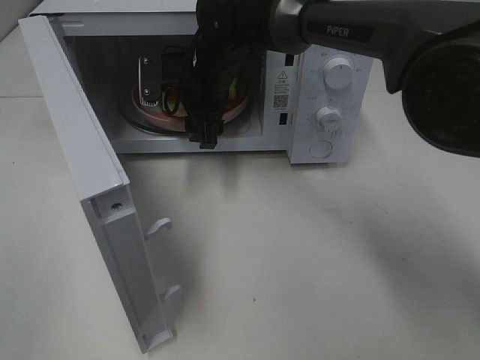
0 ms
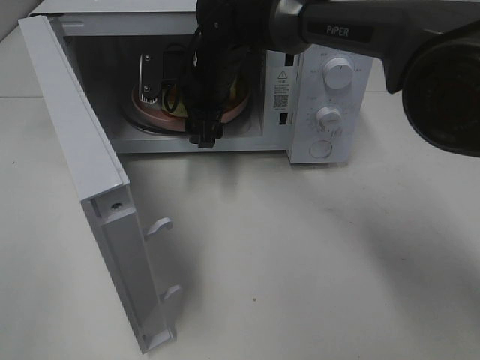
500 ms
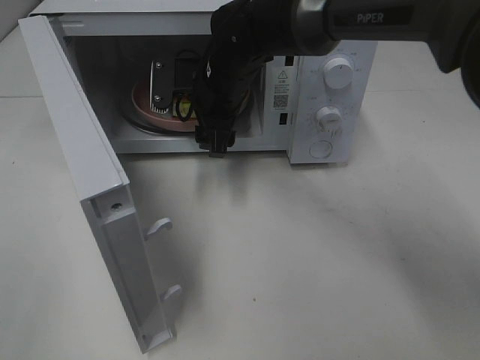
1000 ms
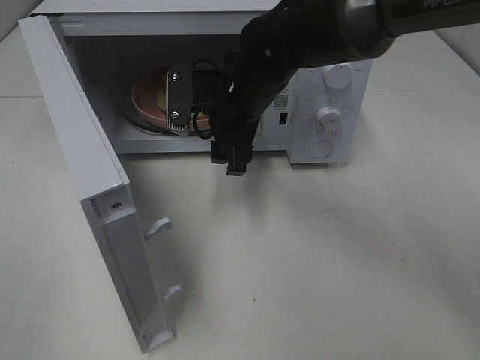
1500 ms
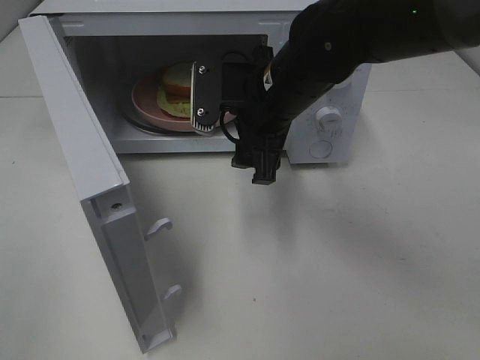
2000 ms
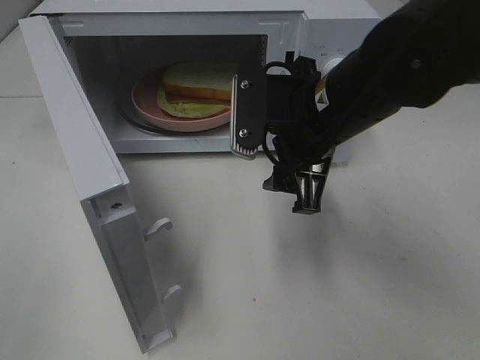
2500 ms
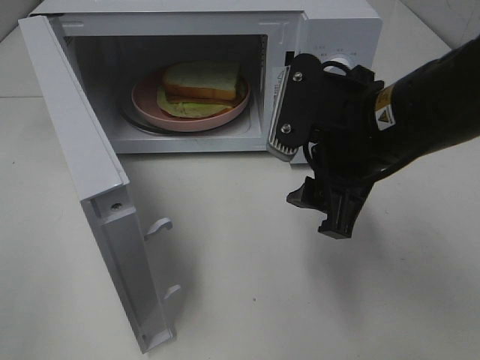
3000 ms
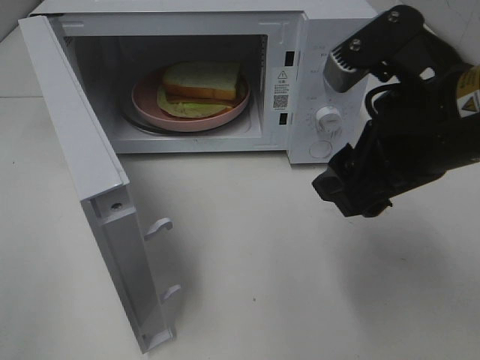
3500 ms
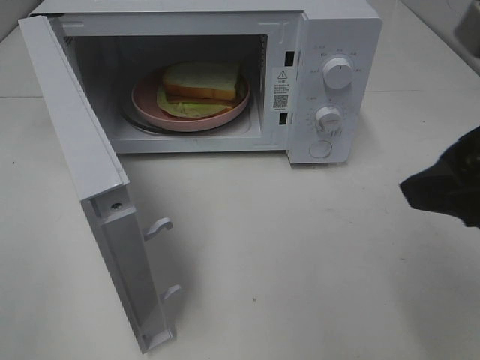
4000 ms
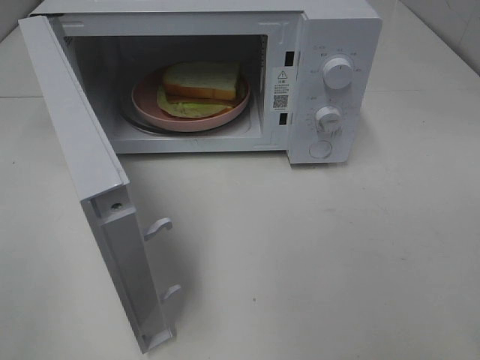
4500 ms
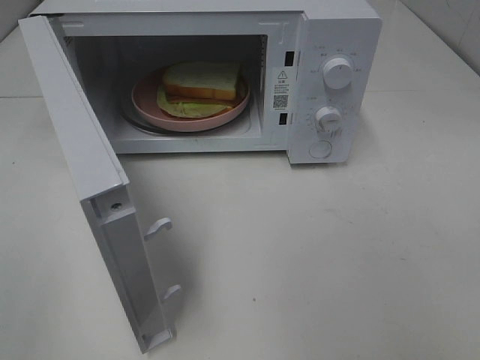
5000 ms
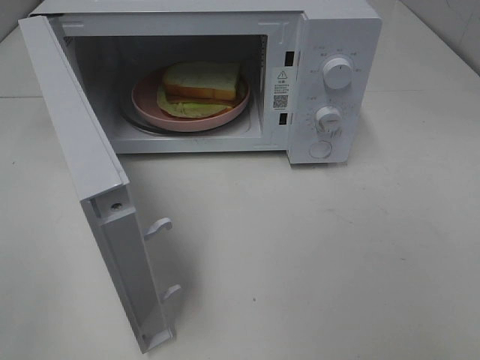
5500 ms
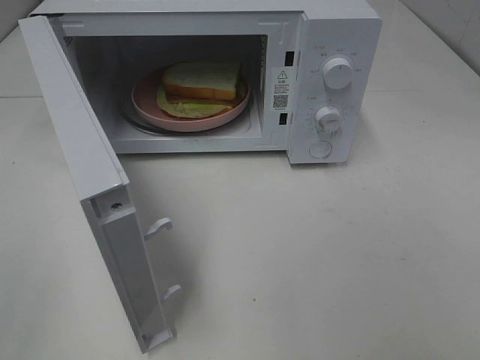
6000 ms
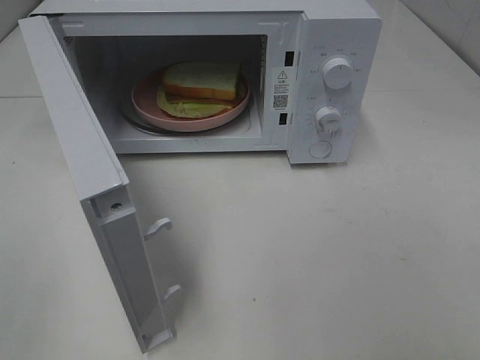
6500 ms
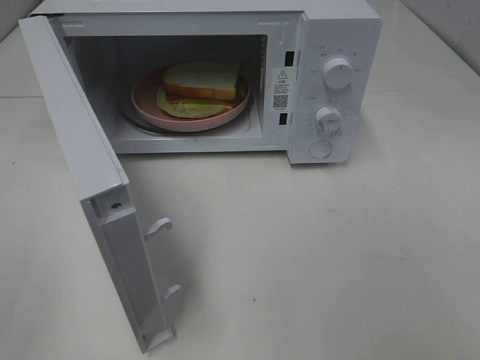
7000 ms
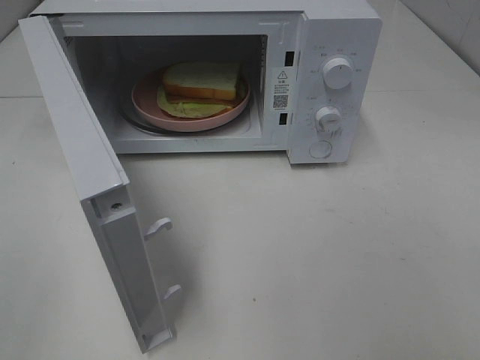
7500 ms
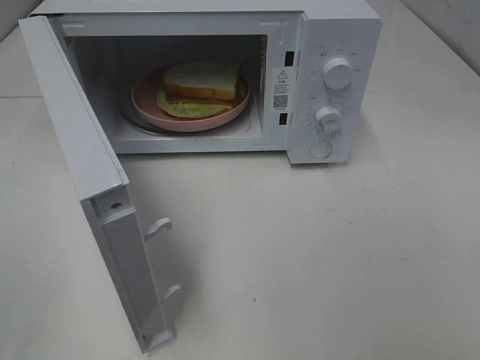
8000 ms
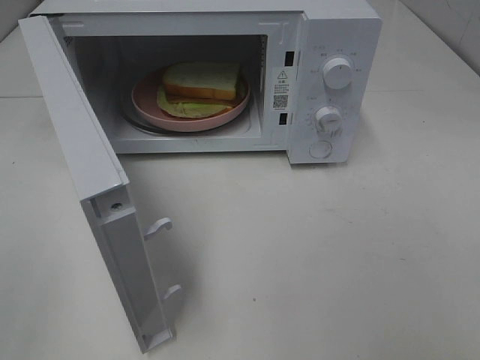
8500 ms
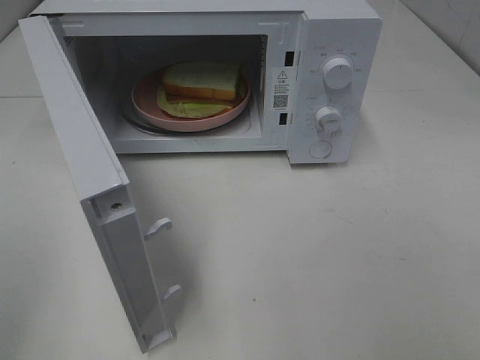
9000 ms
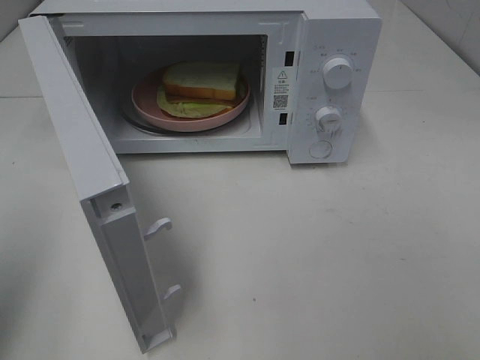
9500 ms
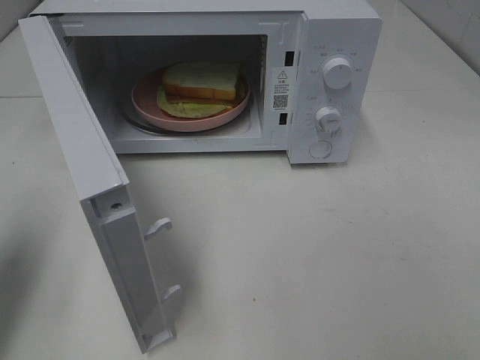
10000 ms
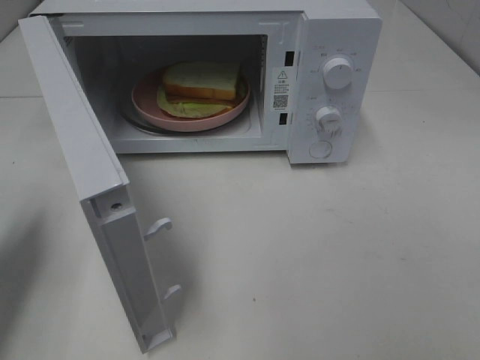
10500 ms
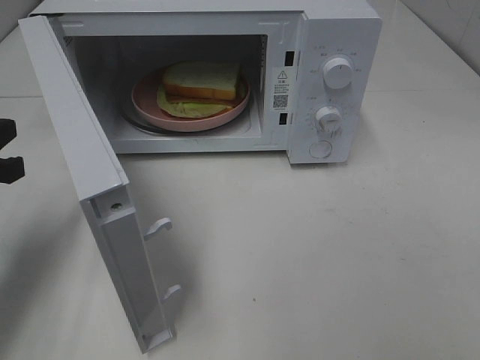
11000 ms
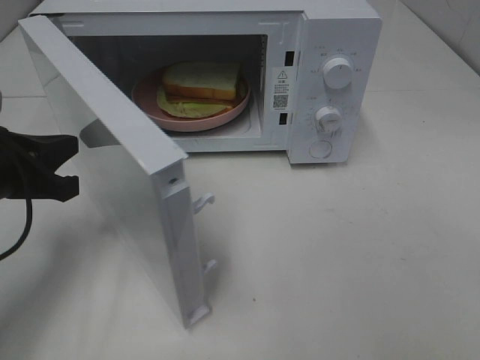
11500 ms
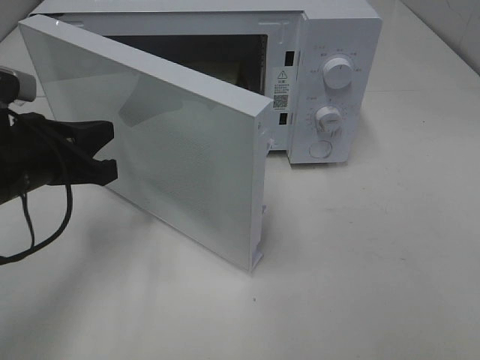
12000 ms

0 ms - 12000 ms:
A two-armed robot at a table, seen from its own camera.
Task of the whole recording: Heat Sandwich.
0 ms - 2000 ms: The right gripper heads backward and to the right, covering roughly 15 cm.
2000 ms - 4000 ms: The right gripper is displaced backward, to the right and upward by roughly 25 cm.
4000 ms - 6000 ms: The right gripper moves backward and to the right, some 15 cm.
8000 ms - 10000 ms: The left gripper shifts some 20 cm forward, and closes up.
10000 ms - 12000 ms: The left gripper goes approximately 15 cm to the right, downward and forward.

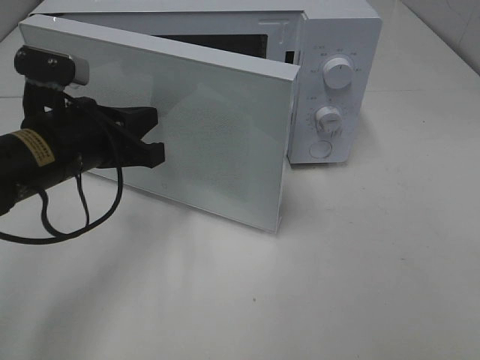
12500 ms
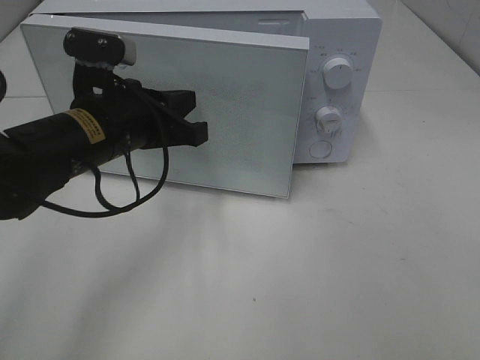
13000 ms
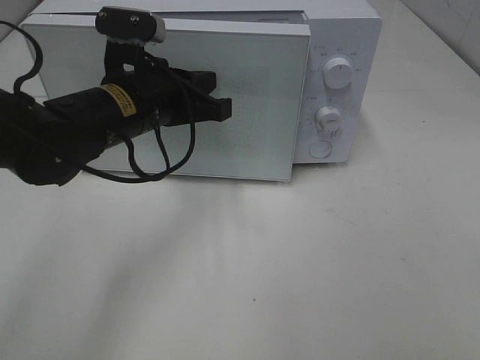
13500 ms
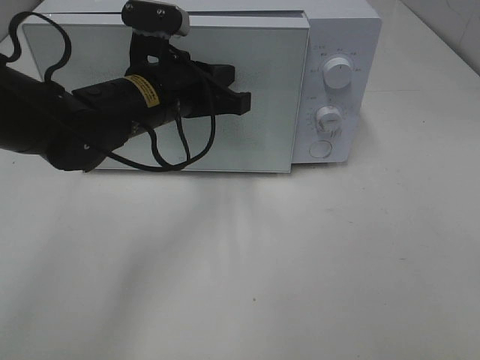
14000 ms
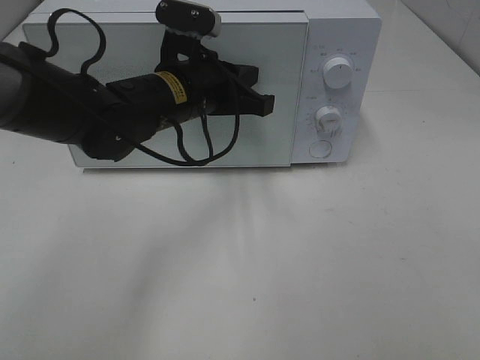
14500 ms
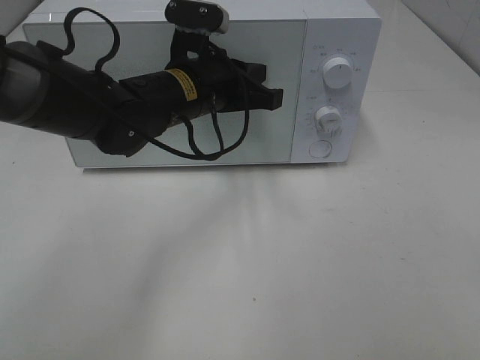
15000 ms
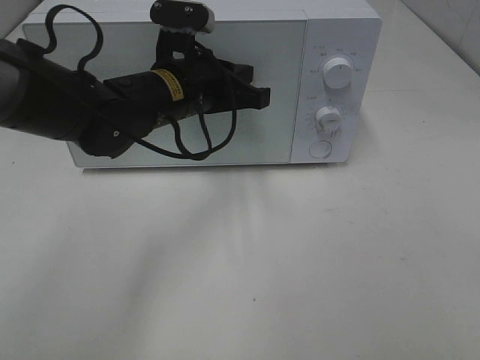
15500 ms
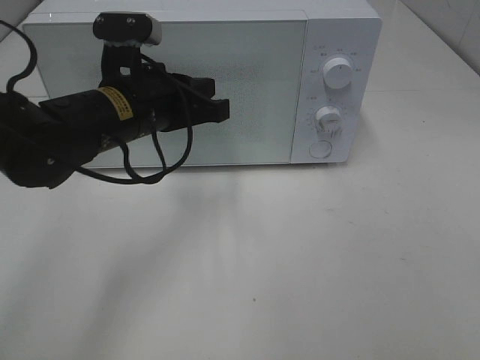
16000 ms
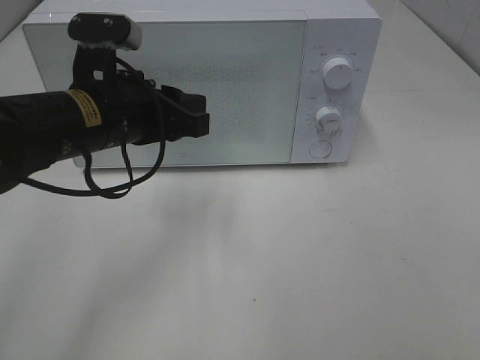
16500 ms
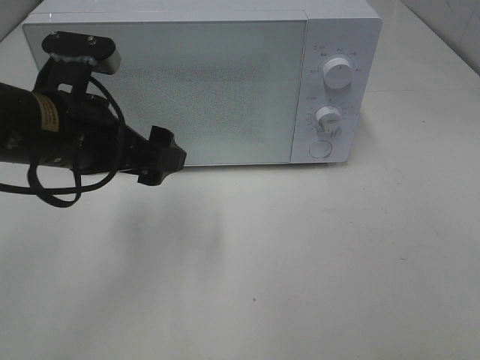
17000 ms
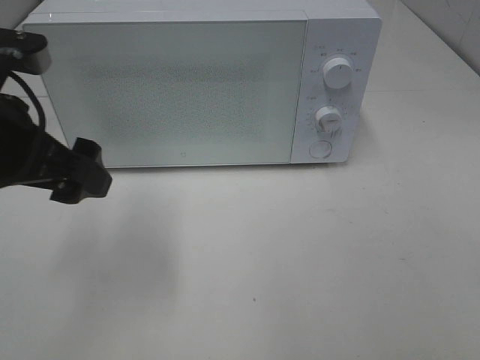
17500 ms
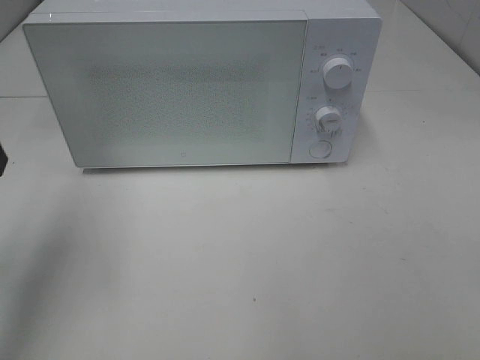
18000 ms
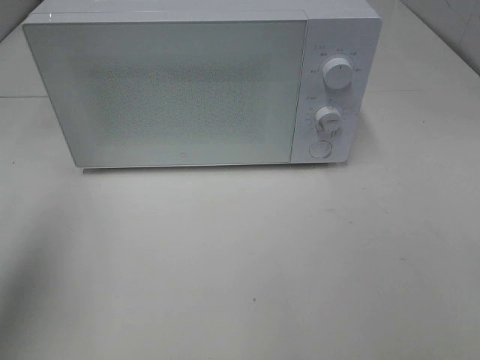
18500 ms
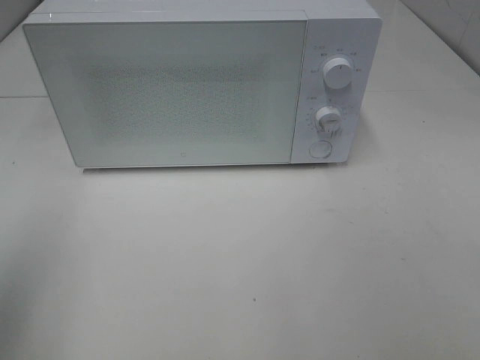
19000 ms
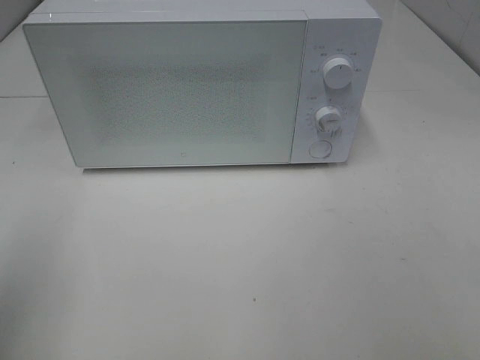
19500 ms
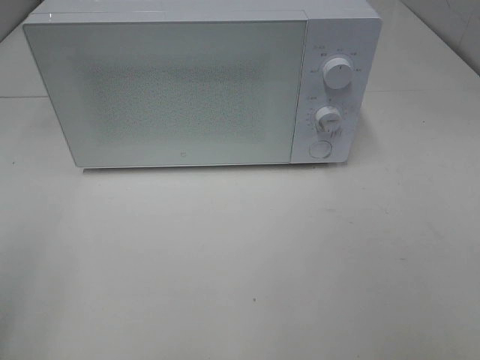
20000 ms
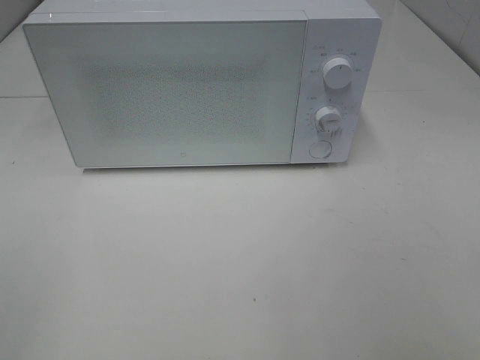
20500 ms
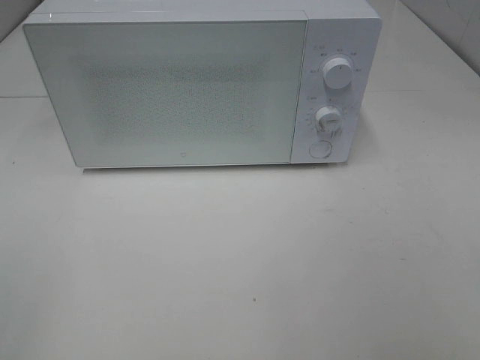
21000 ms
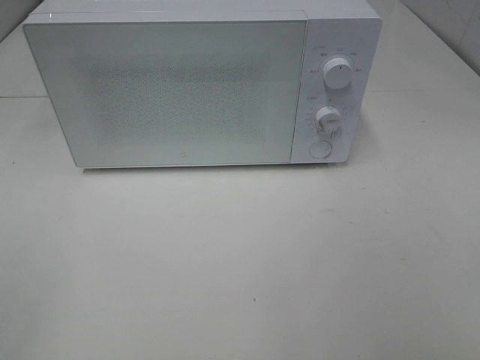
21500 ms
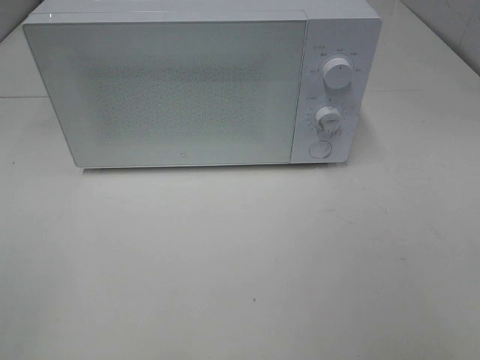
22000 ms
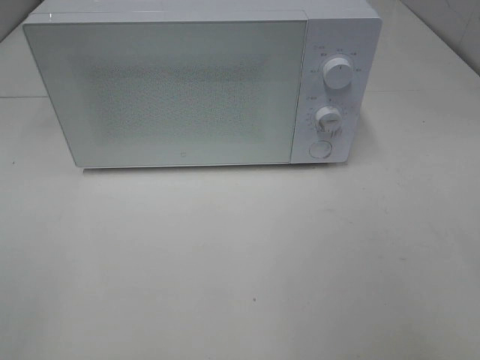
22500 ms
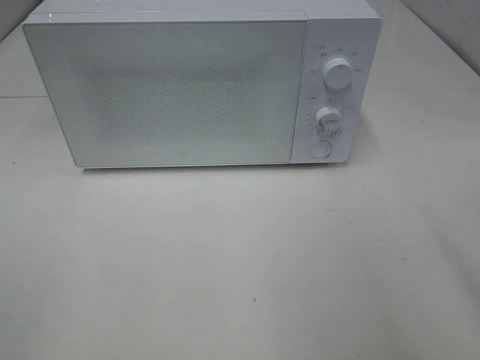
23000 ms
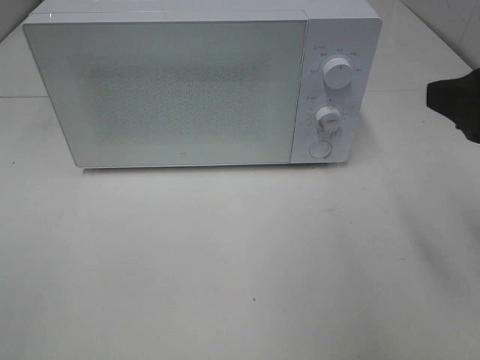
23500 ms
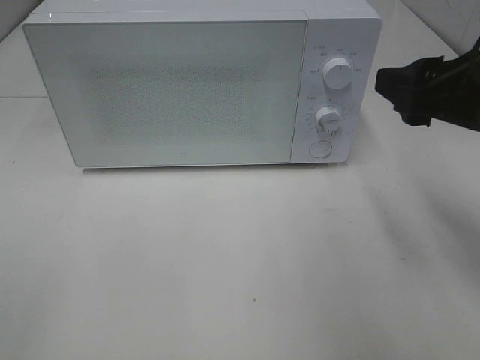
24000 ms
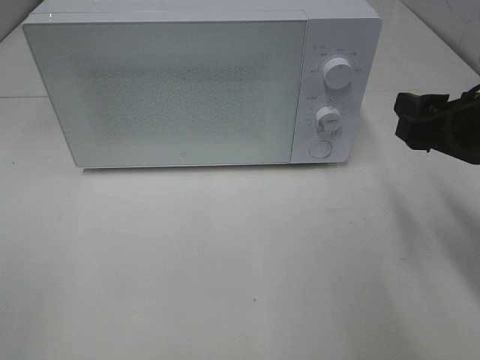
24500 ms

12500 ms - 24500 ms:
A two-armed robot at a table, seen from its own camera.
Task of the whole recording: Heat Sandwich.
Step, 12500 ms - 16000 ms: Left hand: close the microwave door.
12500 ms - 14500 ms: The left gripper is displaced to the right and forward by roughly 15 cm.
14500 ms - 16500 ms: The left gripper travels backward and to the left by some 10 cm, and opens up.
16500 ms - 18500 ms: The left gripper shifts approximately 25 cm to the left, upward and backward, and opens up.
18500 ms - 20500 ms: The left gripper shifts roughly 20 cm backward.
22500 ms - 24500 ms: The right gripper is displaced forward and downward by some 20 cm.

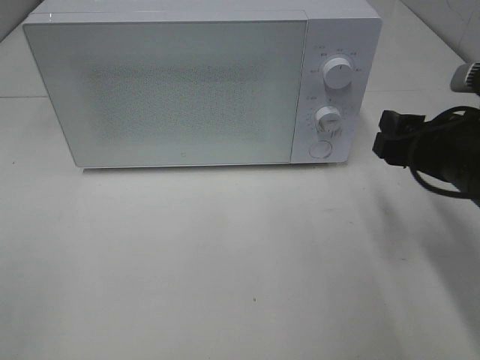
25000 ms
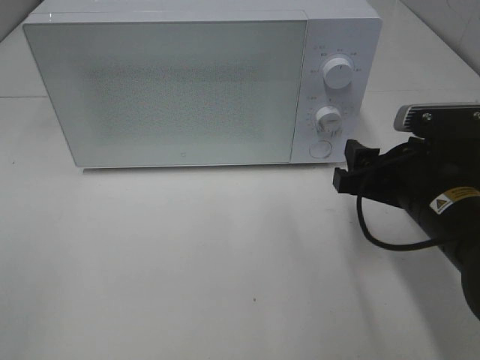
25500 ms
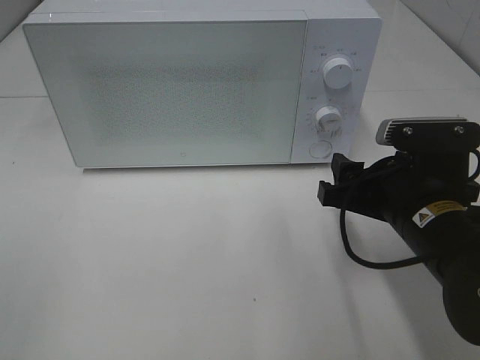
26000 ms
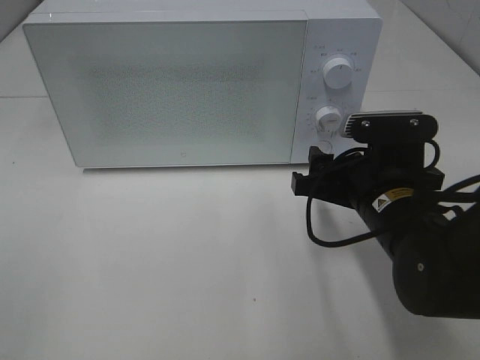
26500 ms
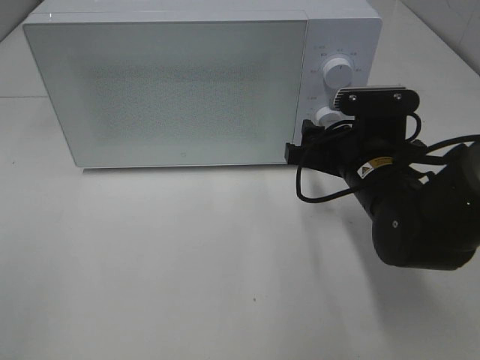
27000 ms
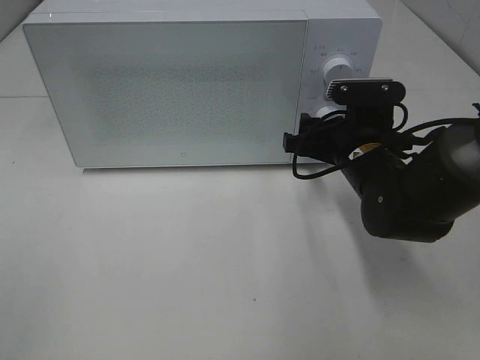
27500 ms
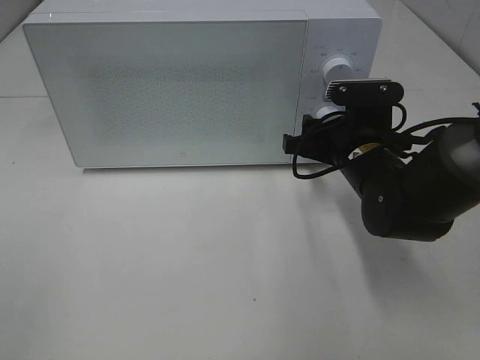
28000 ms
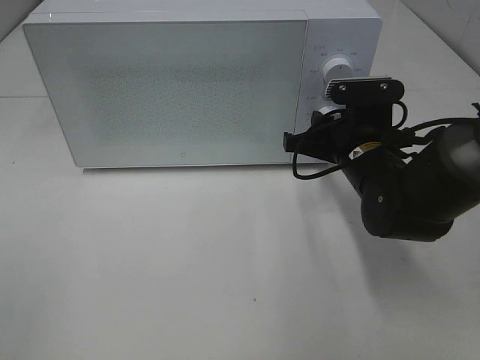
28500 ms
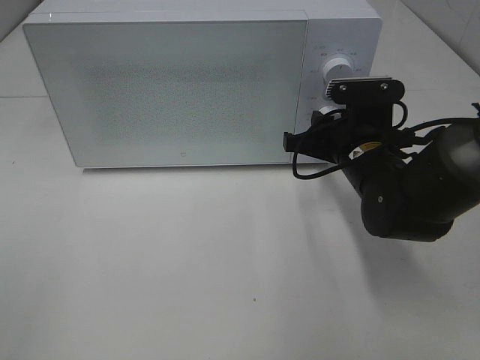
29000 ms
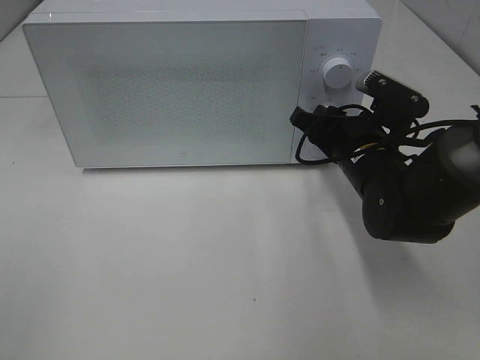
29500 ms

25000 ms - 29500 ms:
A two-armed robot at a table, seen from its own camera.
Task of the whole recording: Heat Sandwich.
25000 ms - 27000 ms: The right gripper heads to the left, forward and downward, covering approximately 10 cm.
27000 ms - 29500 ms: The right gripper closes.
